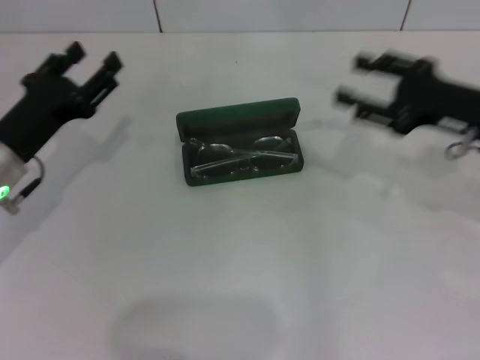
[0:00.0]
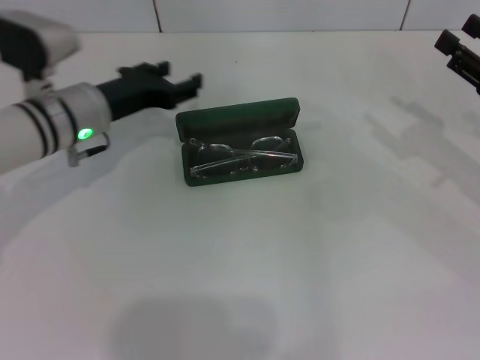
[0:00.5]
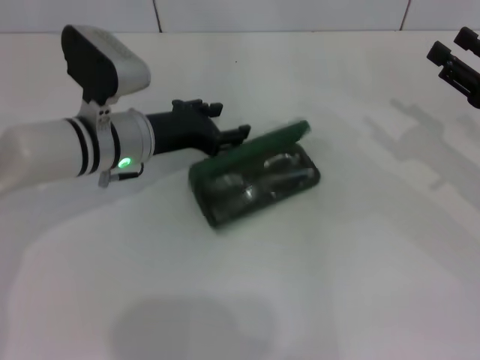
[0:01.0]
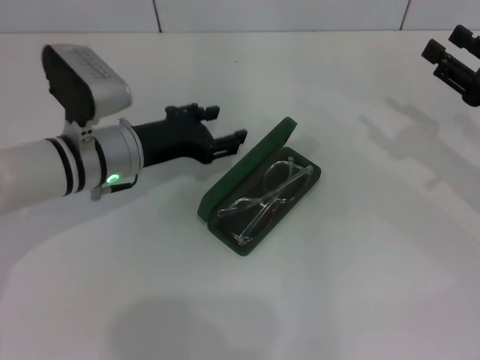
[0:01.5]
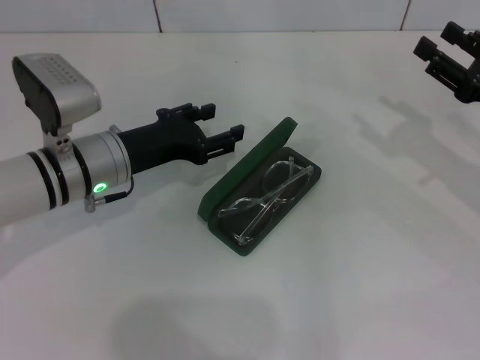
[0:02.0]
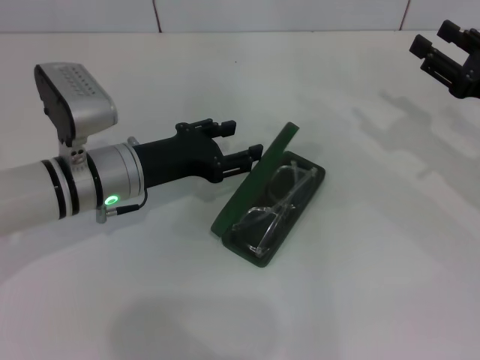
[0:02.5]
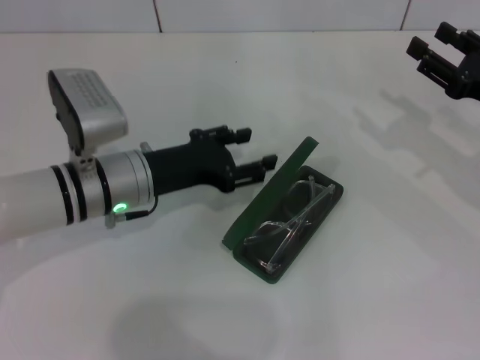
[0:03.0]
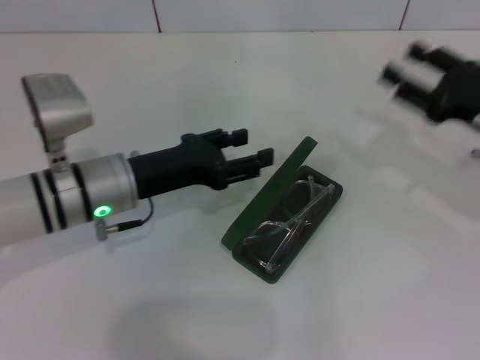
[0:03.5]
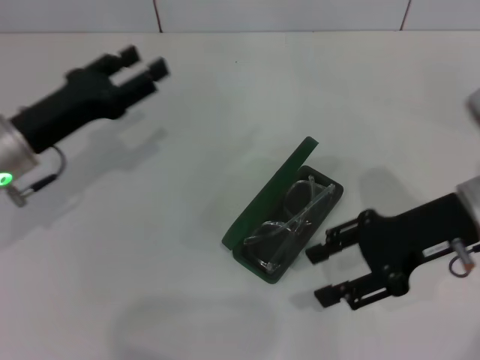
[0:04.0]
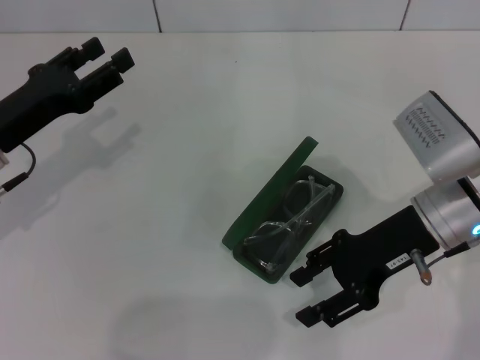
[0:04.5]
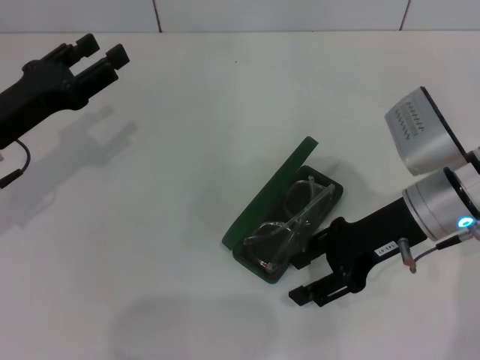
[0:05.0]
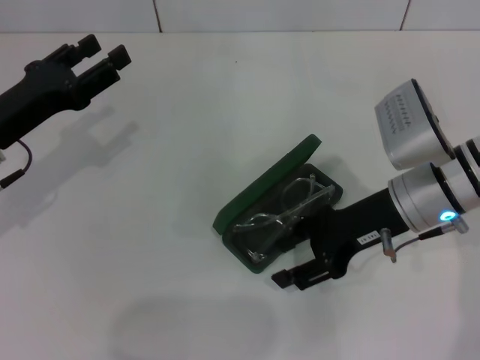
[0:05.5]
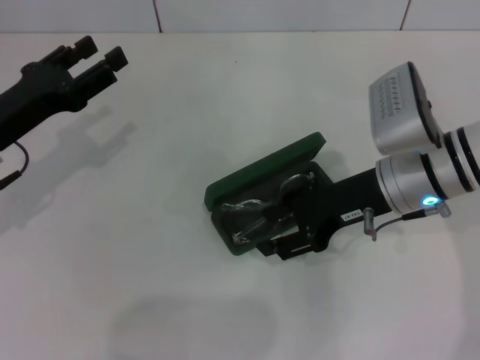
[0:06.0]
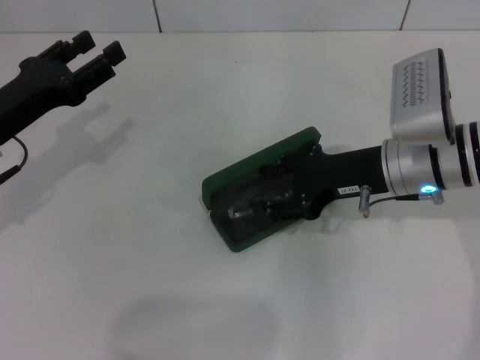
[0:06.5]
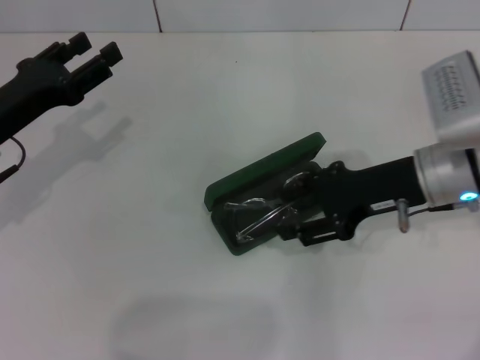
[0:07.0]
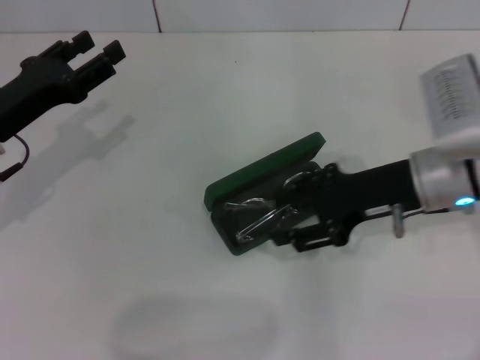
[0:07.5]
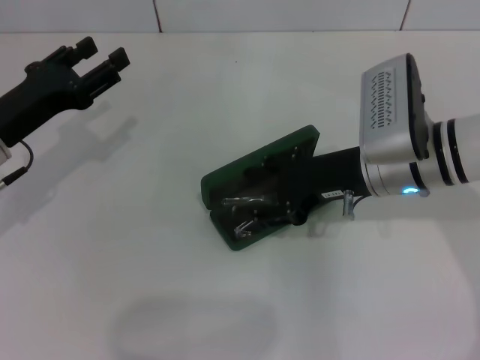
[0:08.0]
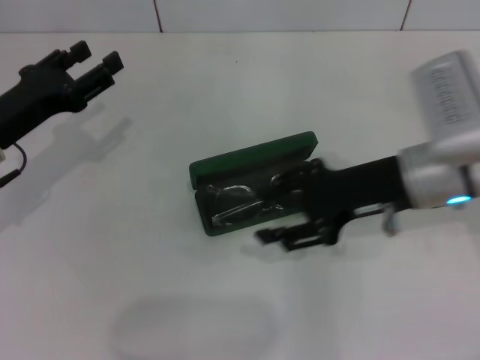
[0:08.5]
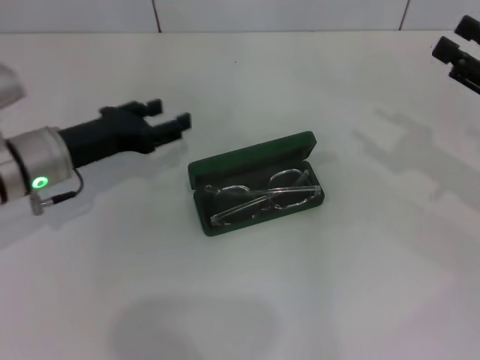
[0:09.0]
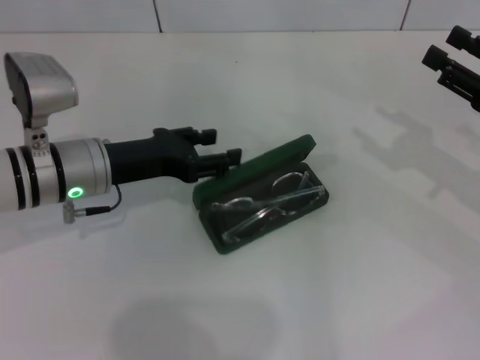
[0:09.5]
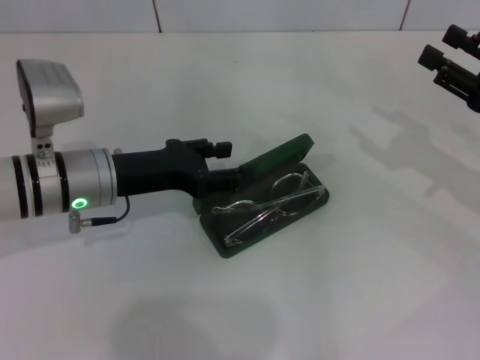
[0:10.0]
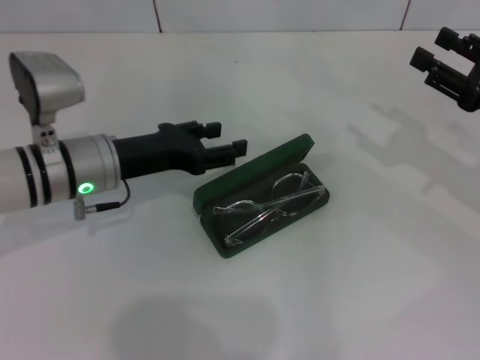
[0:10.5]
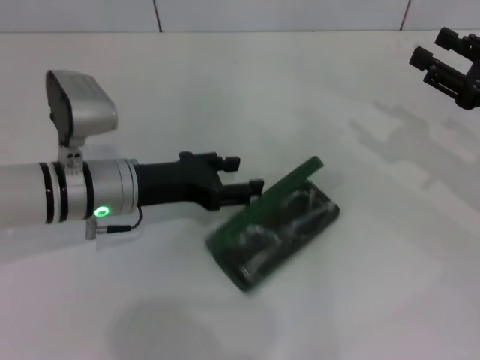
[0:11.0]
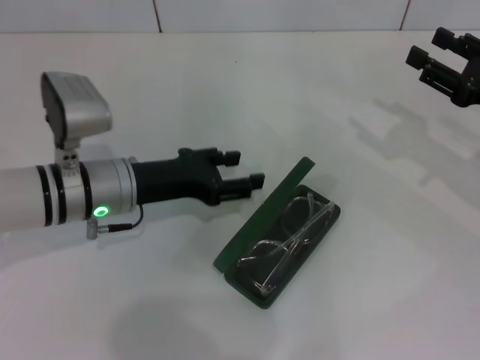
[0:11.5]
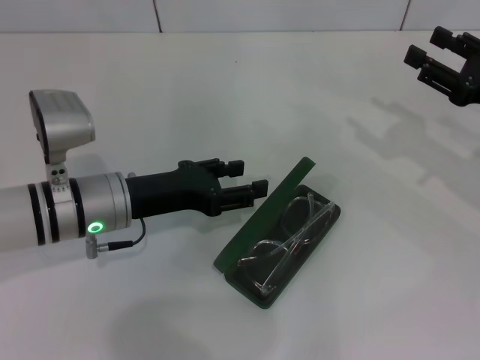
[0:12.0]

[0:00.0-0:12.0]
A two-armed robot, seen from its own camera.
0:00.0 to 0:02.0: The left gripper travels to the right by some 10 cm. Meanwhile the right gripper moves about 5 cm.
0:02.0 to 0:04.0: Both grippers travel together to the left, roughly 10 cm.
0:04.0 to 0:06.0: The right gripper goes some 5 cm to the left.
0:06.0 to 0:08.0: The grippers move only a little.
0:08.0 to 0:10.0: The left gripper travels to the right by about 10 cm. The right gripper is displaced to the right by roughly 15 cm.
0:10.0 to 0:12.0: The grippers stay close to where they were, moving slightly.

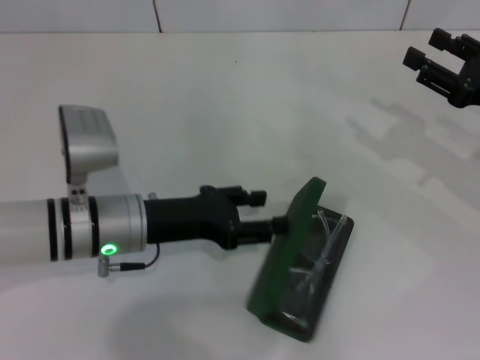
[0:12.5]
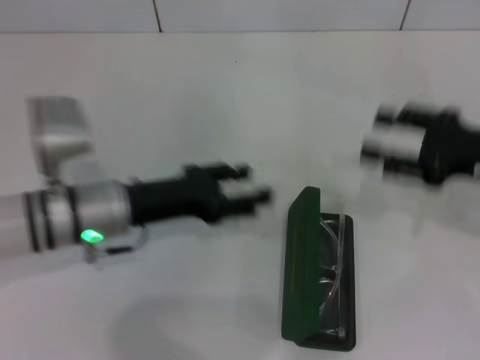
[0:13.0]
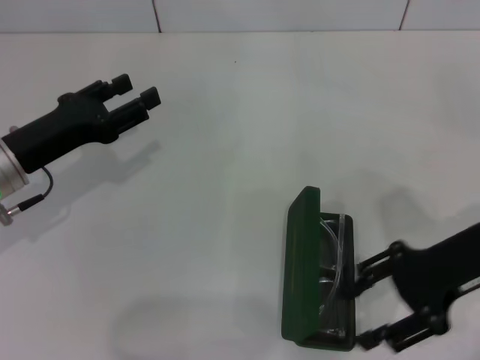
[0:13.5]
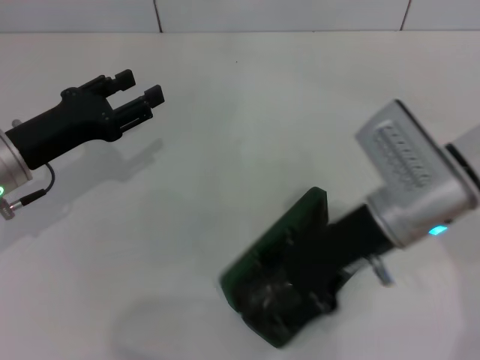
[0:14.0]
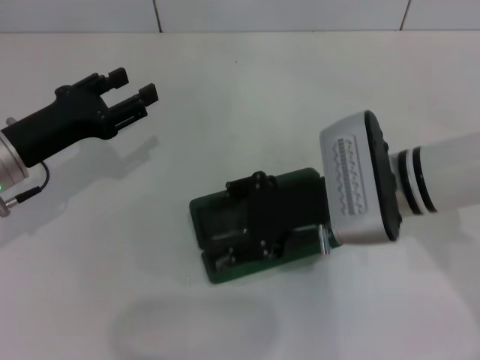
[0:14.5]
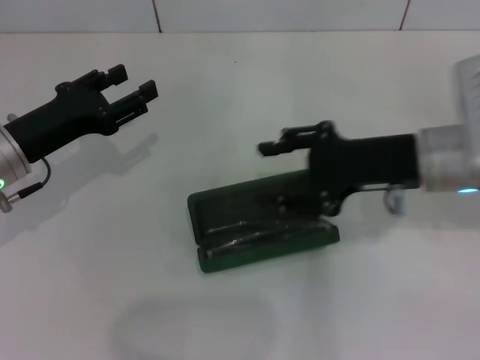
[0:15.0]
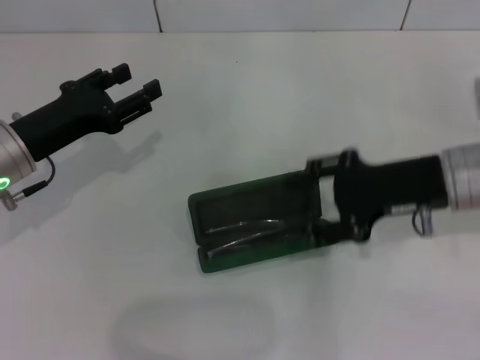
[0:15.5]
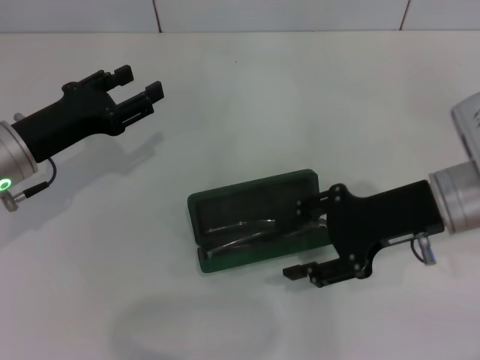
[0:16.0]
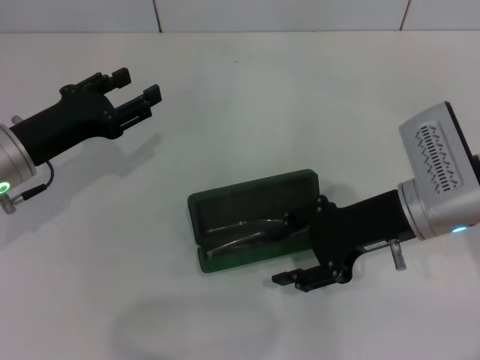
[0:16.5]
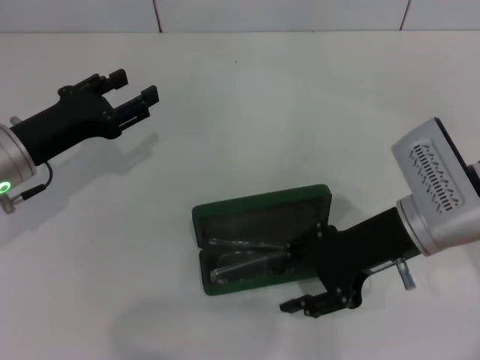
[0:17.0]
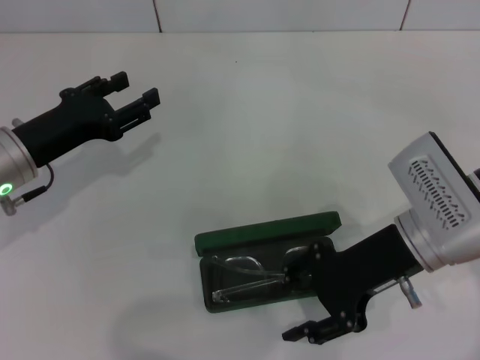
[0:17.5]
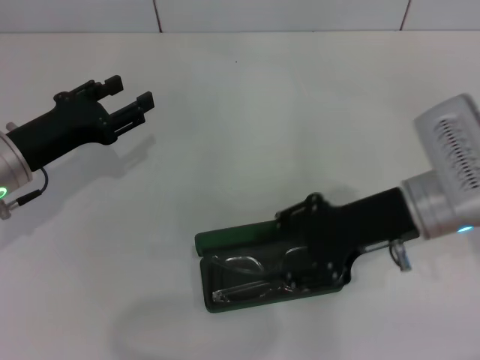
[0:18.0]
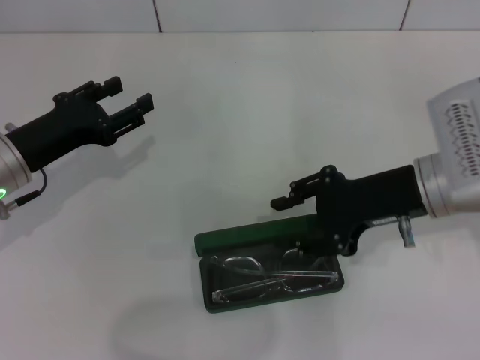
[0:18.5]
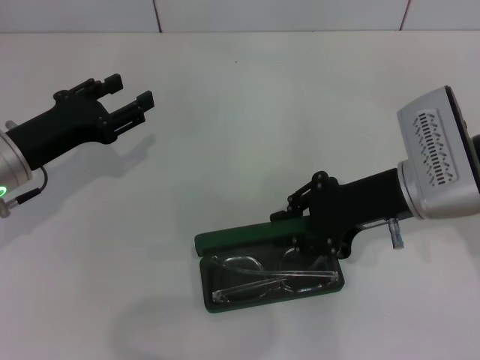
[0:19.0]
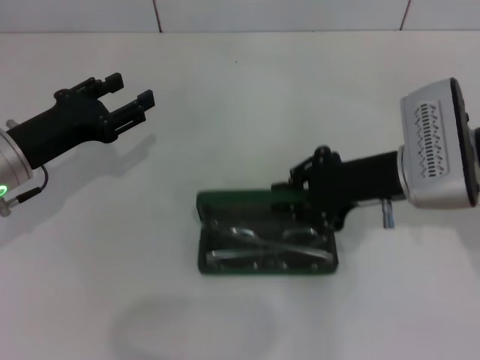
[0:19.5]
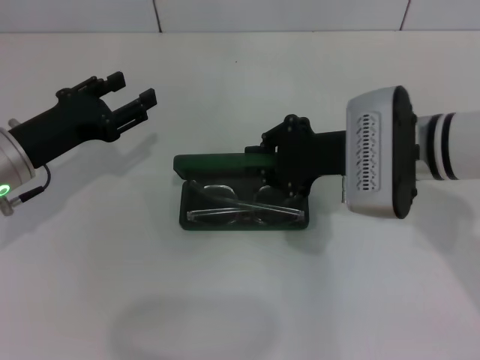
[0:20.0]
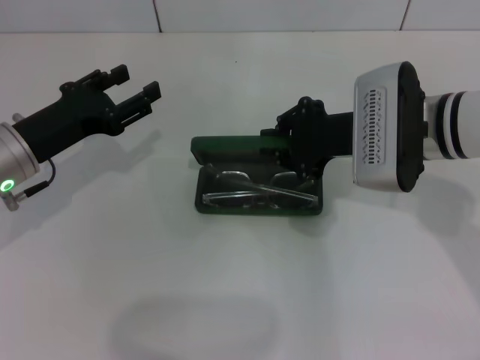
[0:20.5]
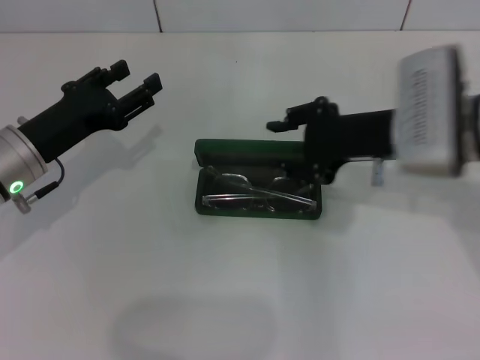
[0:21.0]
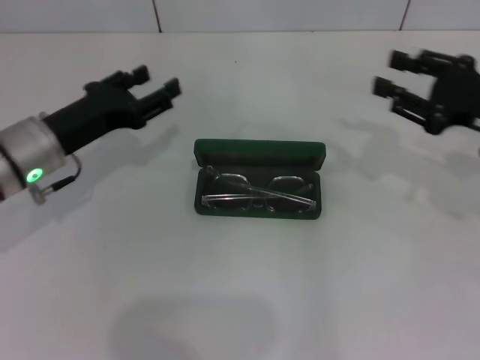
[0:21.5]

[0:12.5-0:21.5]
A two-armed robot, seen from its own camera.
Step, 0:12.5 to 0:19.0: Grab the glasses case with your right hand.
Step, 0:19.5 to 0:20.5: Place the glasses case in the center of the table with your right hand.
0:12.5 to 0:14.5: The right gripper moves to the left, about 20 cm, while the left gripper shifts roughly 10 cm to the left.
0:14.5 to 0:17.0: The right gripper shifts about 5 cm to the right.
0:17.0 to 0:19.5: The right gripper closes its fingers.
0:19.5 to 0:21.5: The right gripper travels to the right by some 10 cm, and opens up.

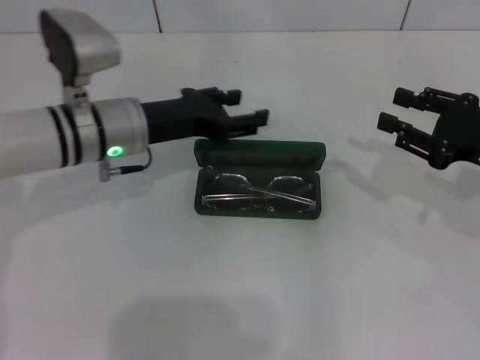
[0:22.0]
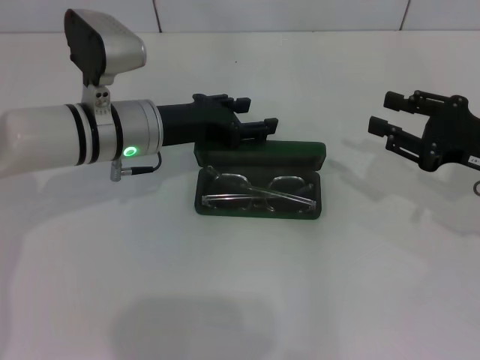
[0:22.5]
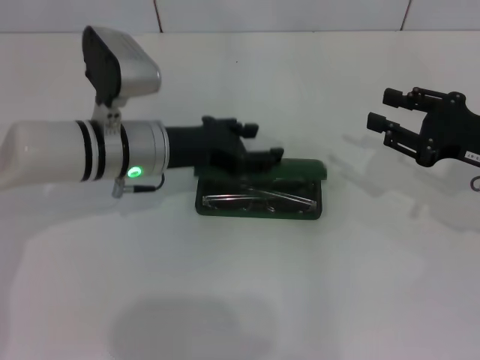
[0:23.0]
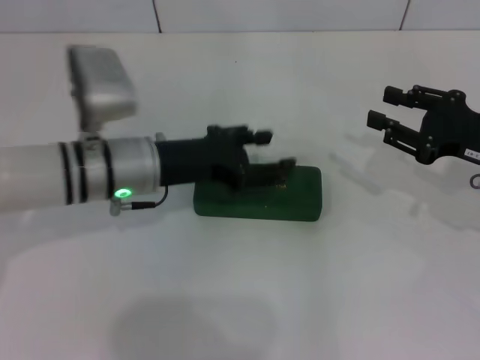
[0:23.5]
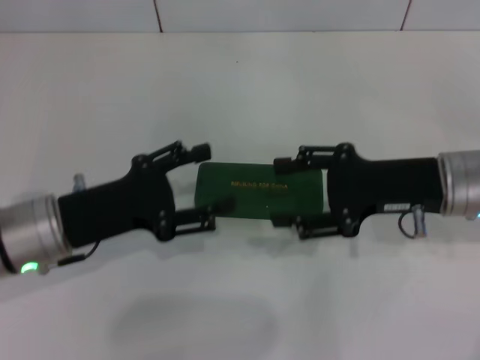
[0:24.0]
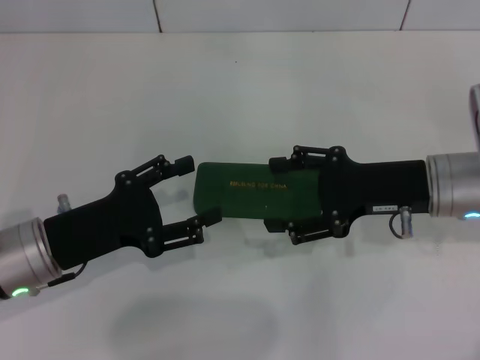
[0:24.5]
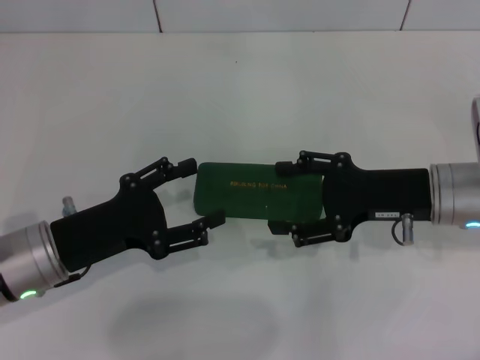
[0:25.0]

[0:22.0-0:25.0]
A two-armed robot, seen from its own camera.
0:22.0 to 0:23.5: There are only small adjustments of the grippers.
0:23.5 to 0:25.0: The right gripper heads to the left, covering roughly 10 cm, while the left gripper heads backward and to the left, covering about 10 cm.

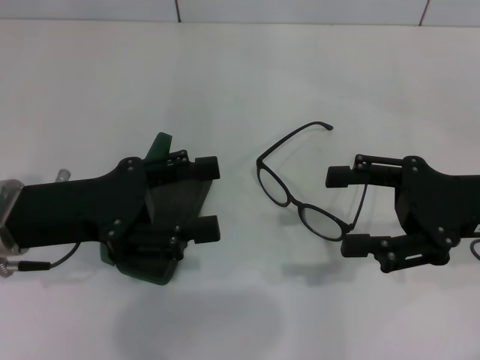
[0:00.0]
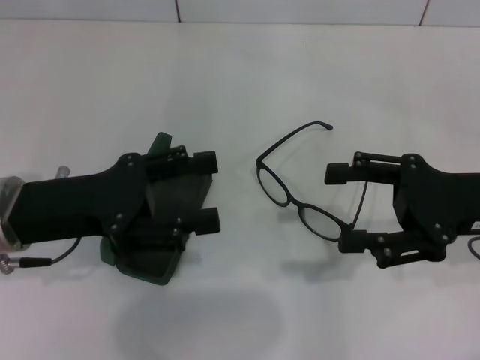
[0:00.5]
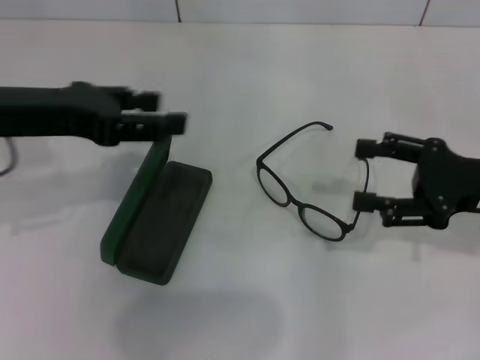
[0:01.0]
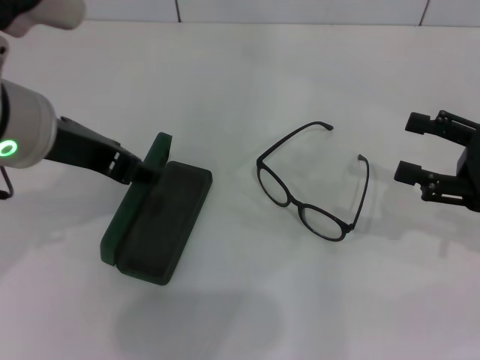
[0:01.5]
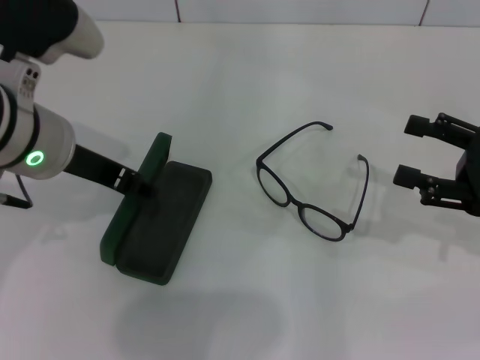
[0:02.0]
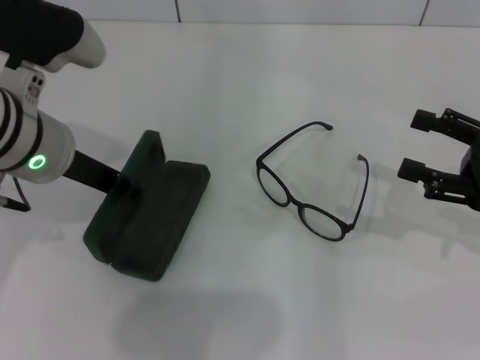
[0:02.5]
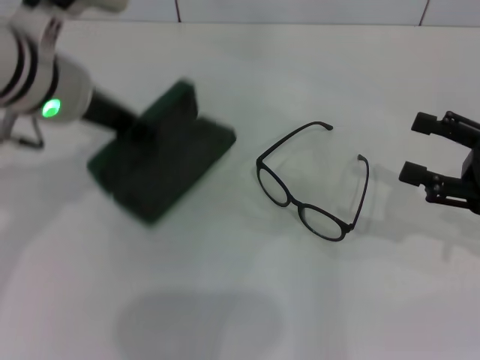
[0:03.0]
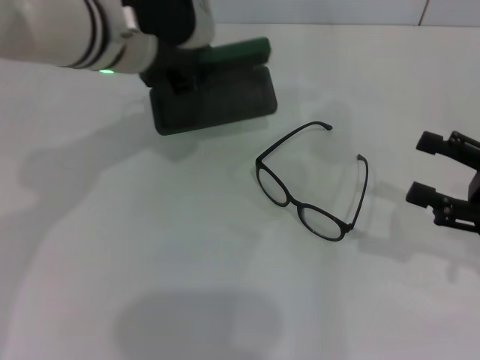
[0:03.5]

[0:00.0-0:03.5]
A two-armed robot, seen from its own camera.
Step, 0:00.0 to 0:02.5: Grab the glasses case with your left hand.
0:00.0 to 0:02.0: The left gripper is displaced upward and to the right by about 10 cm, while the right gripper travels to the right by approximately 5 cm.
0:02.0 to 0:03.5: The left gripper moves forward and to the right, some 10 cm, and closes its fingers.
